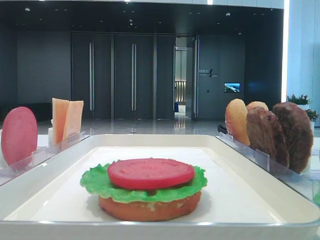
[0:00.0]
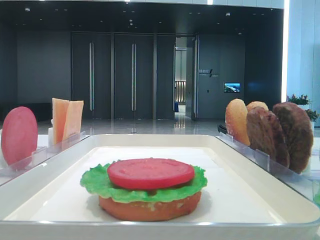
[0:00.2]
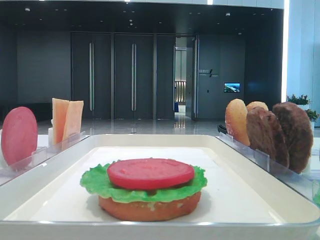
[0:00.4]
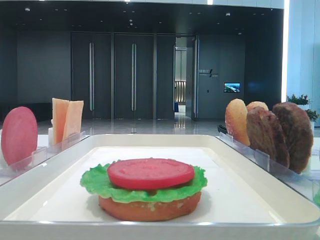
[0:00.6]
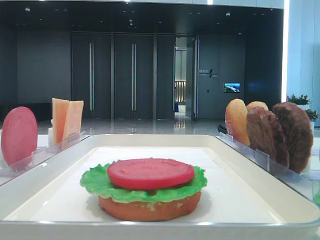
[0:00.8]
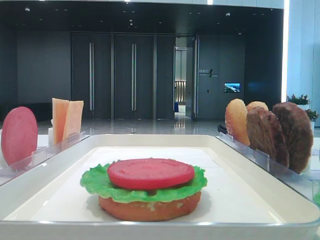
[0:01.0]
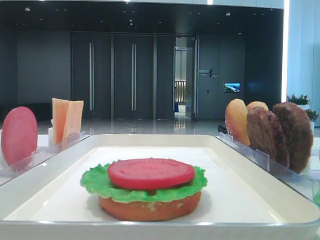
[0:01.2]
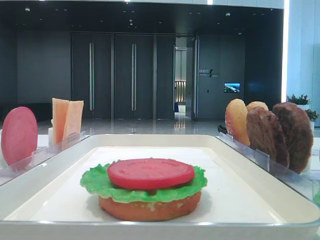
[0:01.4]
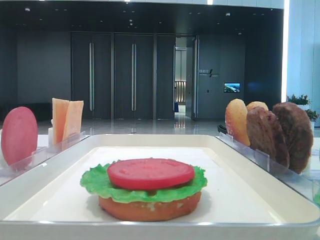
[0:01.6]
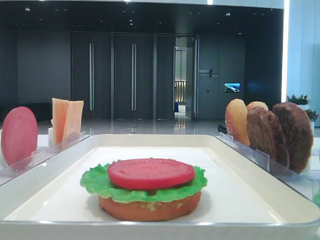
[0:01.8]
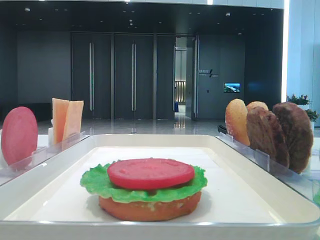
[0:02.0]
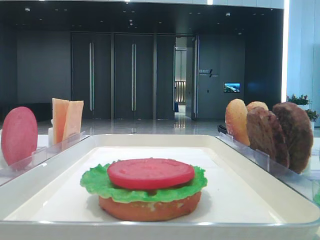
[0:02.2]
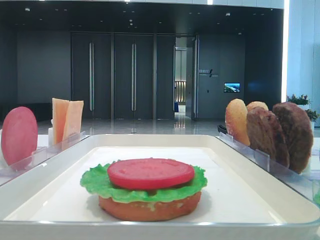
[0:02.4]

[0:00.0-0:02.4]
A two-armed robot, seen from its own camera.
0:01.2 to 0:02.4: Both grippers stay put.

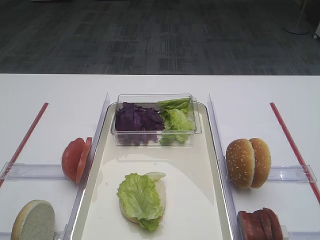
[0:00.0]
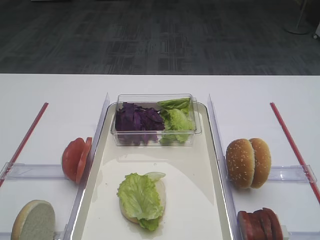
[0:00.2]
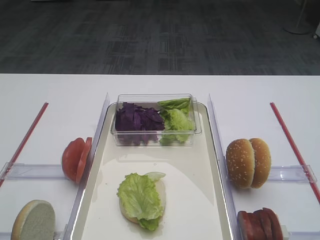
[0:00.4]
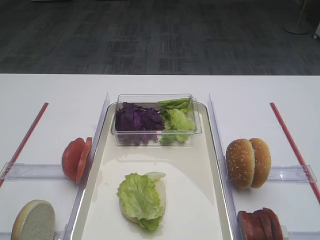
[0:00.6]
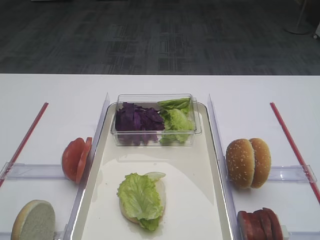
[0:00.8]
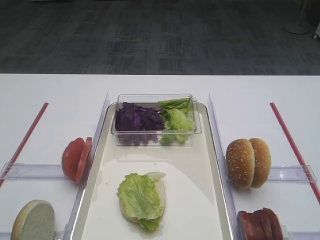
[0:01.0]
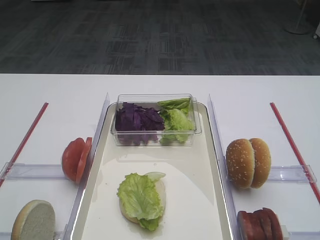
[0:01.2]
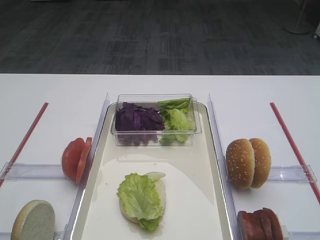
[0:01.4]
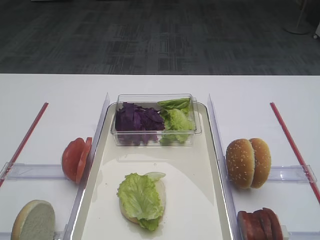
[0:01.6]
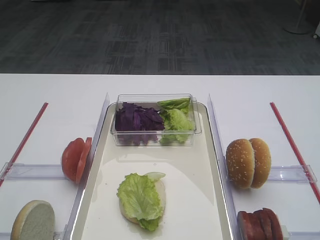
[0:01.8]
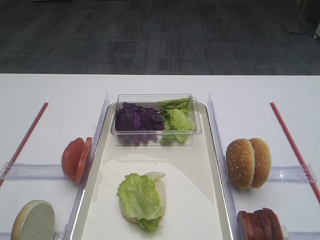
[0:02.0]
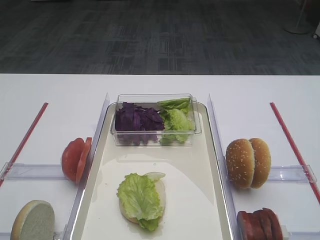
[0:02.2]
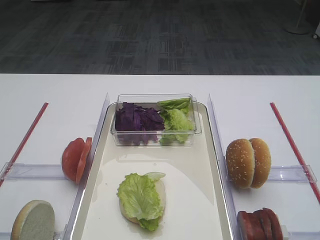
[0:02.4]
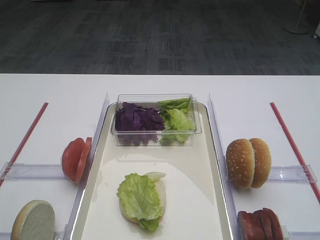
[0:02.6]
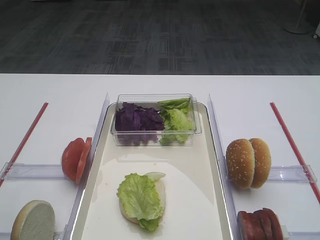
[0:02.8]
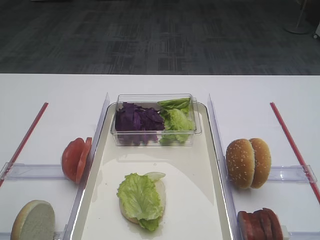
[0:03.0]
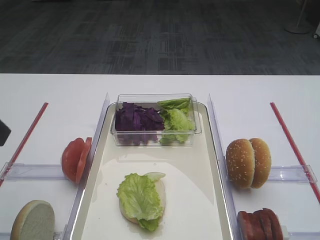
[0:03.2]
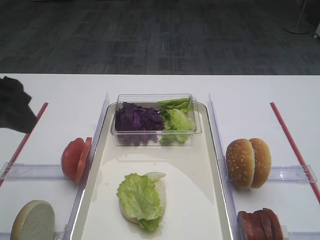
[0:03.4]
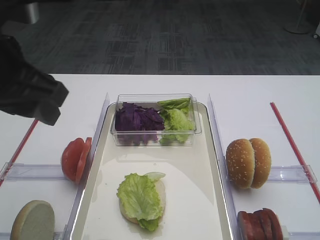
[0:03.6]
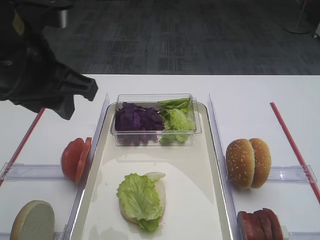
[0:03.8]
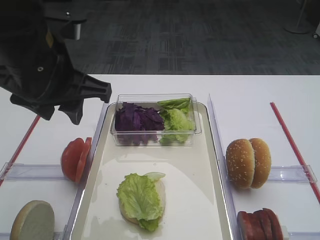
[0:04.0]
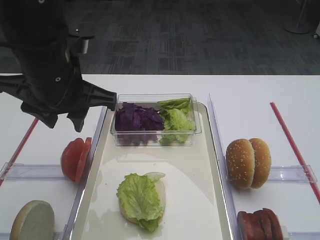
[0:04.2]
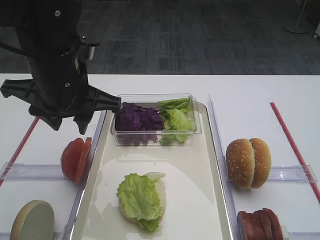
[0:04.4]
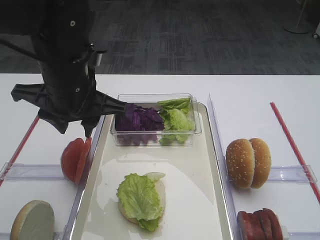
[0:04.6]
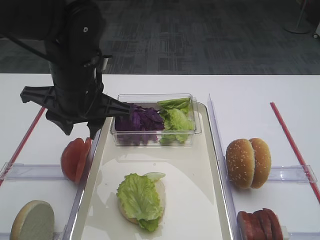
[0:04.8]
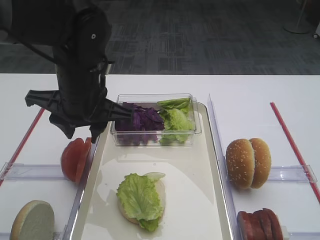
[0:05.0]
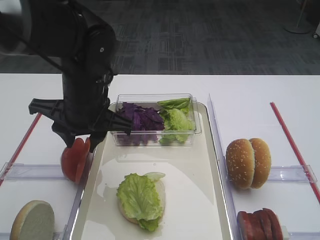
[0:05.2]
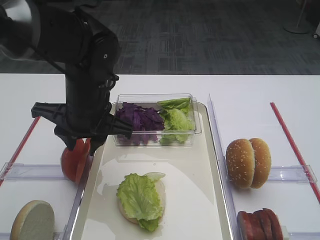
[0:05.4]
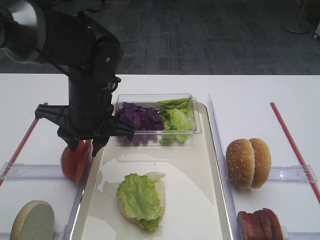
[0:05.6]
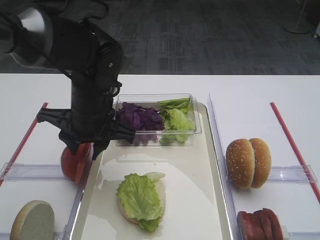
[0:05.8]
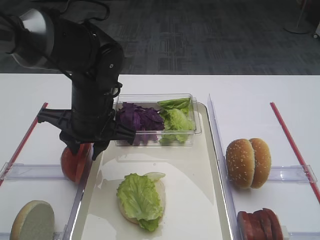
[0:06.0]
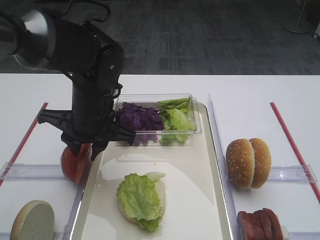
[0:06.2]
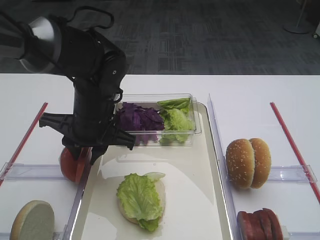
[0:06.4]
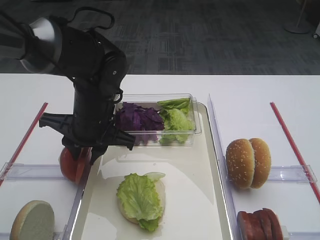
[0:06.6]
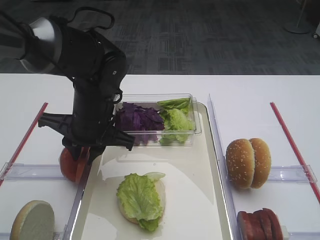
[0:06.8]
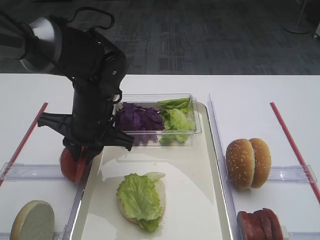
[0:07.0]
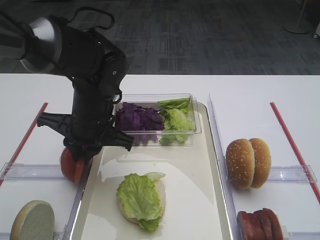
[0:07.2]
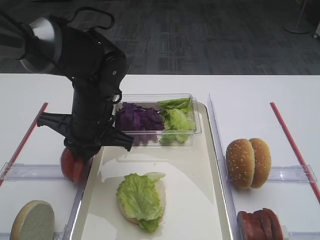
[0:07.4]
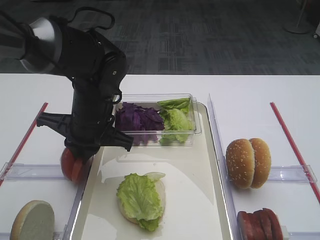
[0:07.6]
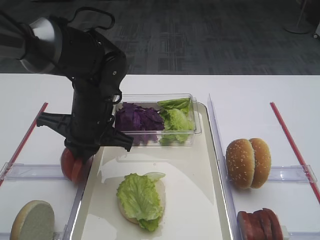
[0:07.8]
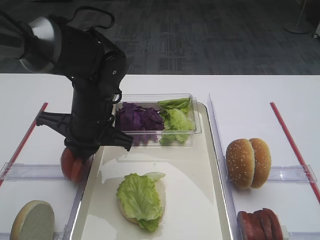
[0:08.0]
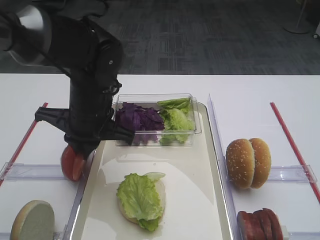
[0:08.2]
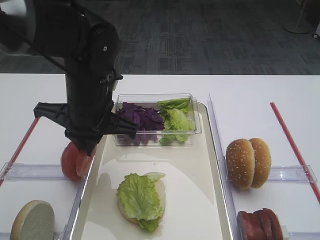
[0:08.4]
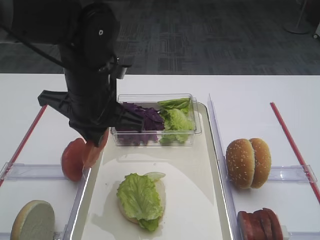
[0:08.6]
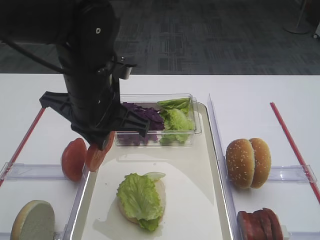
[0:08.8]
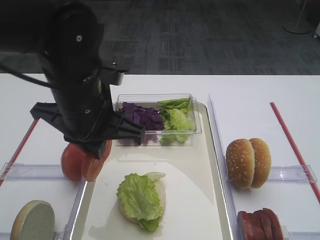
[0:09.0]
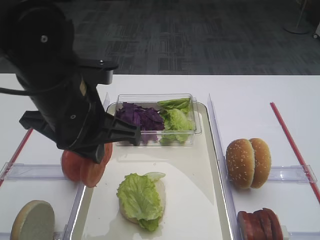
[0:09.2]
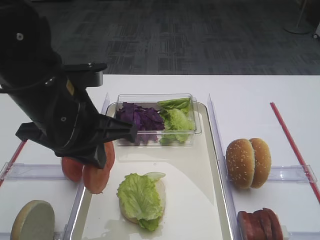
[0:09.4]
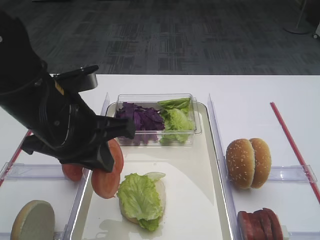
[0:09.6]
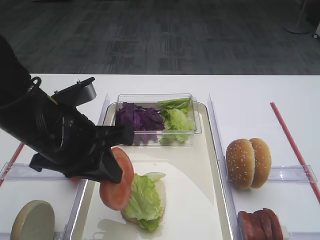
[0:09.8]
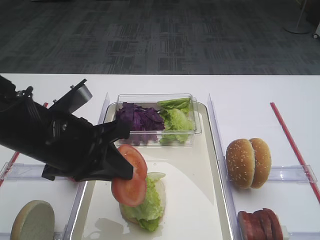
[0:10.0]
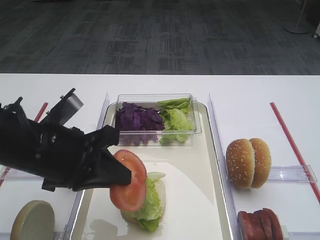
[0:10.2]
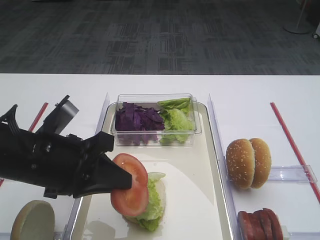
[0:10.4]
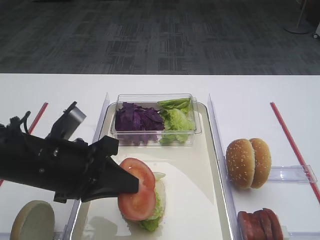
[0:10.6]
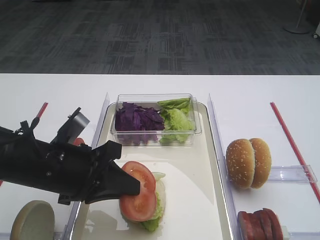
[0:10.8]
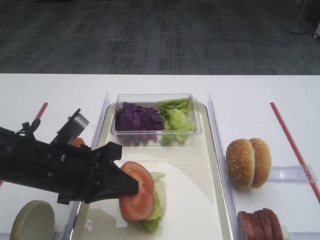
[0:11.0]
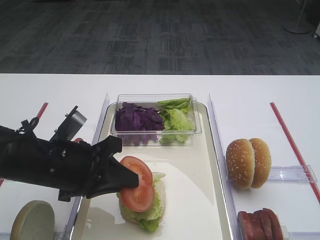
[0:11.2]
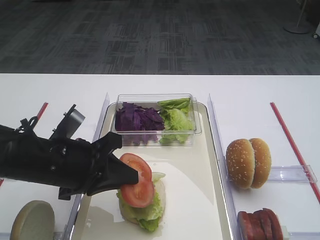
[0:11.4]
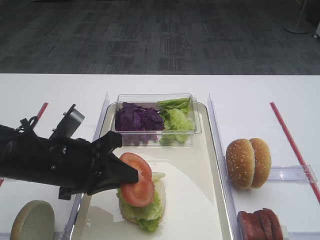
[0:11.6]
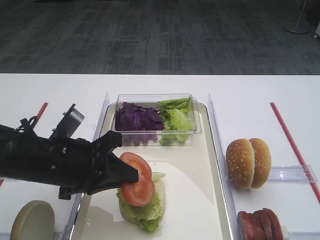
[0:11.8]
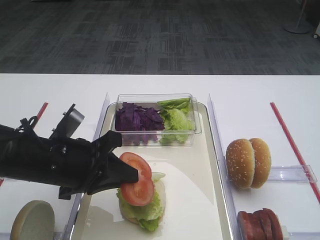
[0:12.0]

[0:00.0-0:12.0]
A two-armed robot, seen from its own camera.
Step, 0:00.0 to 0:08.8: Pick up the tomato slice with the left gripper.
0:03.0 to 0:04.4: The left gripper moves forward, to the right and downward, approximately 20 cm.
0:04.4 to 0:06.0: The left gripper moves downward, roughly 5 cm.
0:06.0 to 0:07.6: The left gripper closes.
0:07.6 to 0:09.0: The left gripper travels upward and backward by roughly 10 cm.
0:09.0 to 0:10.4: The left gripper travels downward and backward by about 10 cm.
0:10.4 to 0:12.0: The grippers move only a little.

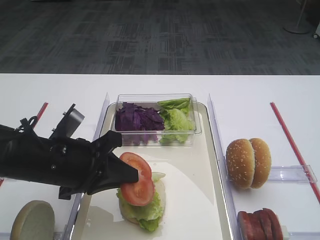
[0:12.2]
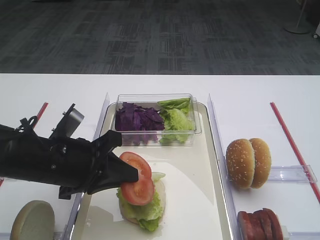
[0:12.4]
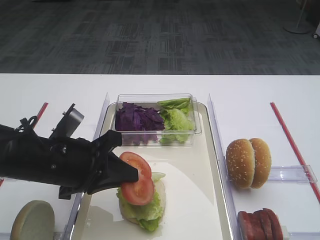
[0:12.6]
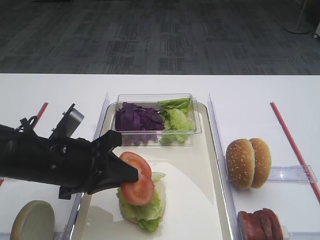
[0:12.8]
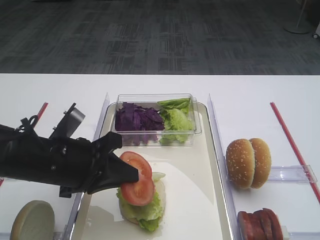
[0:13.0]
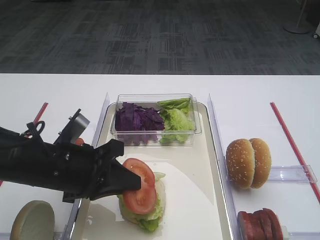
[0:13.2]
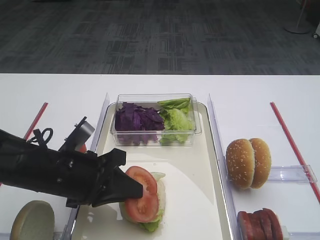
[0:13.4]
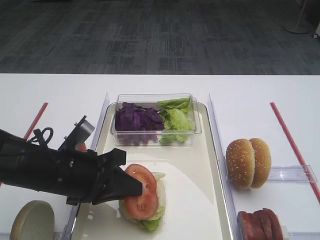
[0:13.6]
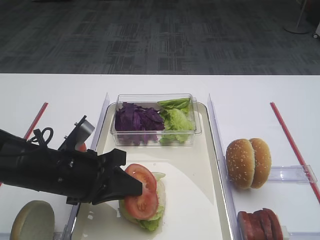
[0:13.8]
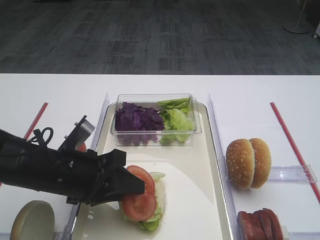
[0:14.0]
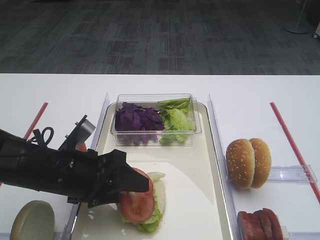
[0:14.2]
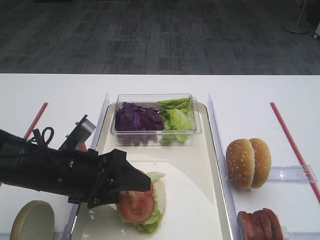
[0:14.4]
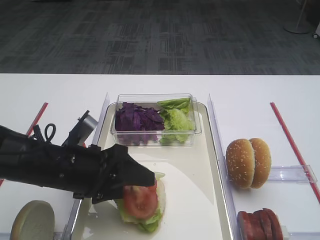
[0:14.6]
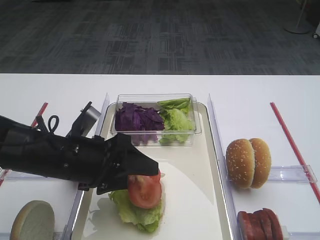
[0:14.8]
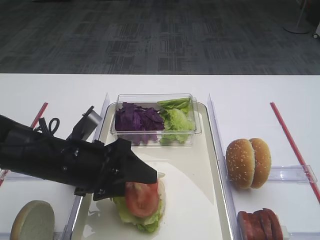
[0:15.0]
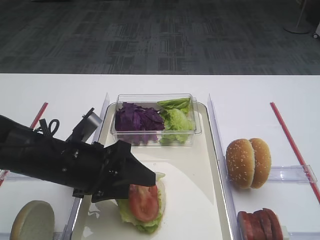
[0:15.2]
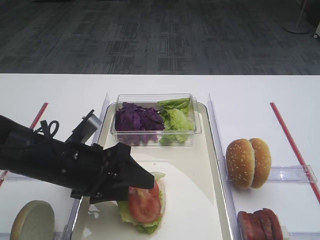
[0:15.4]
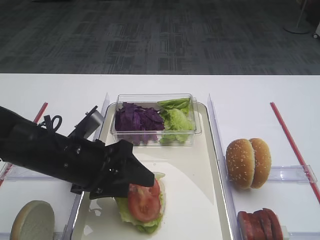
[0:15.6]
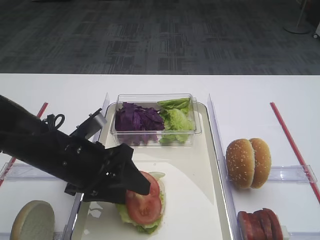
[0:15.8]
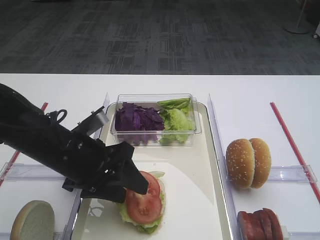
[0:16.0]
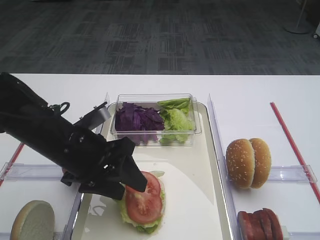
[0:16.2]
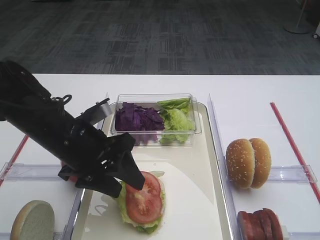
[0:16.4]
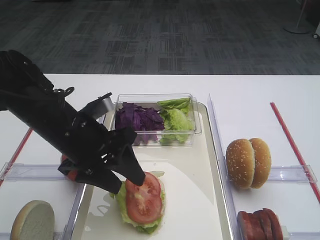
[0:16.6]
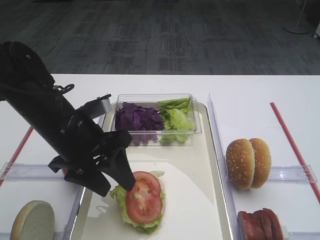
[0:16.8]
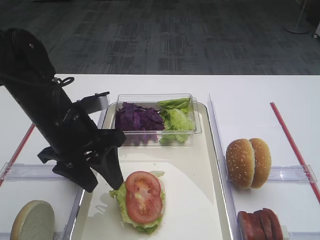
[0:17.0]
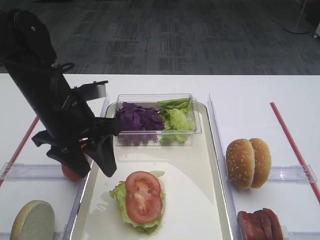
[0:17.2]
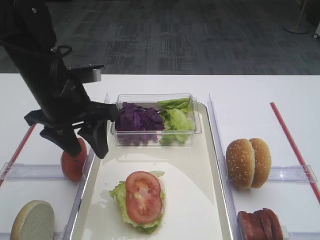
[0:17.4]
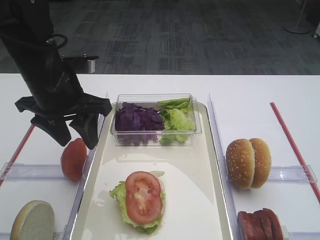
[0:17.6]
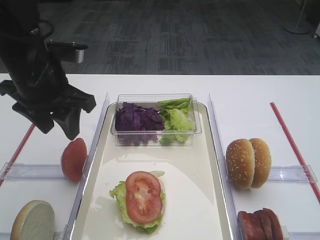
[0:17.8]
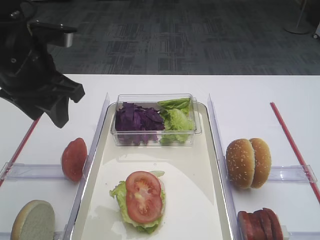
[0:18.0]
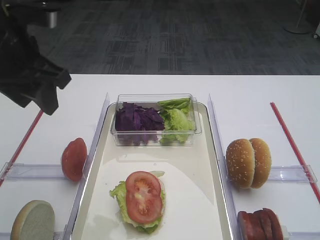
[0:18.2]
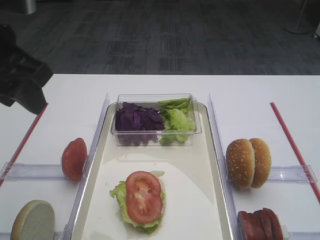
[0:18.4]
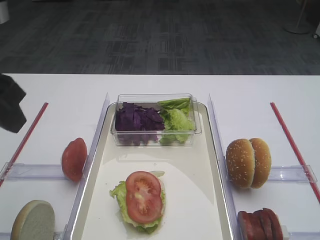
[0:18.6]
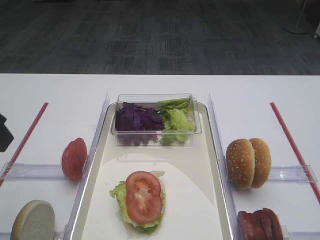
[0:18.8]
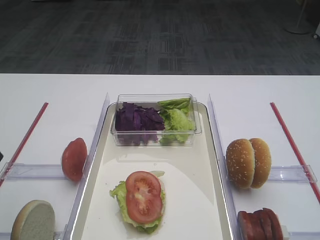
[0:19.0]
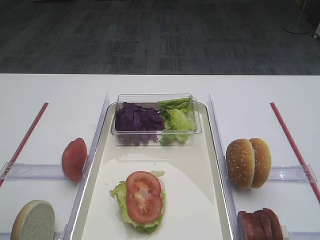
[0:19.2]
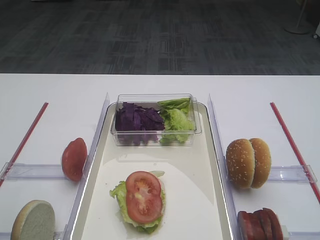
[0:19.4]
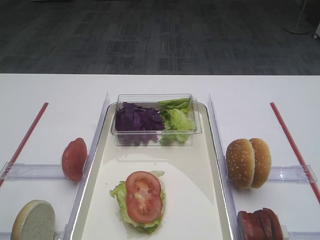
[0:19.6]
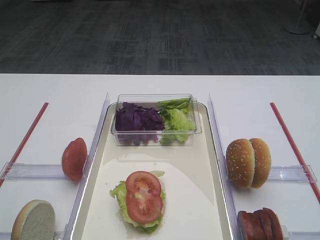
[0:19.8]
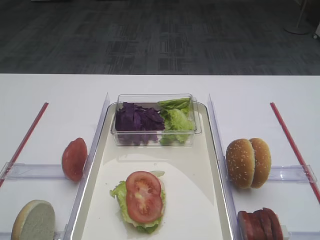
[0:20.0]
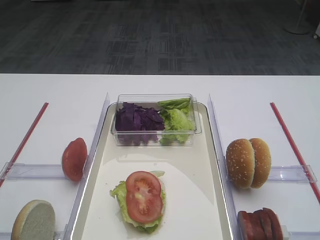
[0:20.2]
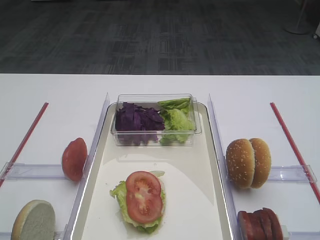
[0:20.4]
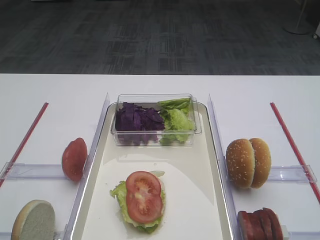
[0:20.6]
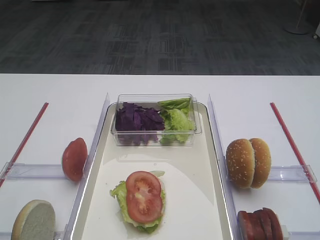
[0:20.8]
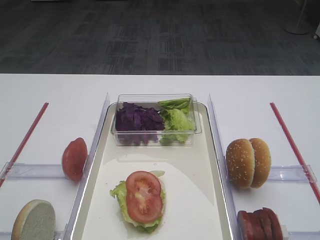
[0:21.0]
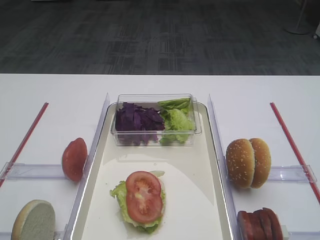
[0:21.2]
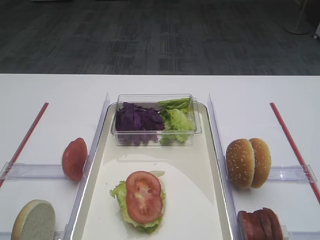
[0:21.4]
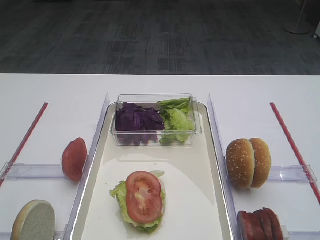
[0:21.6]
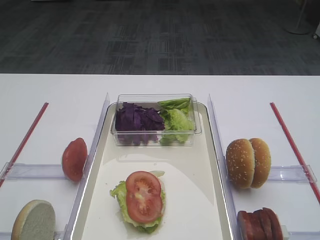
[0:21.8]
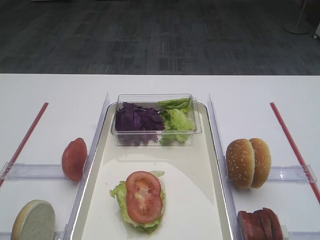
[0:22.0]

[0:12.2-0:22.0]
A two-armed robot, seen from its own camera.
Step, 0:12.2 to 0:16.8: Place the tomato slice on the lettuce leaf with the left gripper.
0:12.2 to 0:13.6: The grippers make only small movements.
0:13.6 to 0:15.0: The left gripper opens up.
0:16.4 to 0:17.8: The left gripper is displaced upward by approximately 10 cm.
0:17.8 to 0:19.2: The left gripper goes some 20 cm backward.
